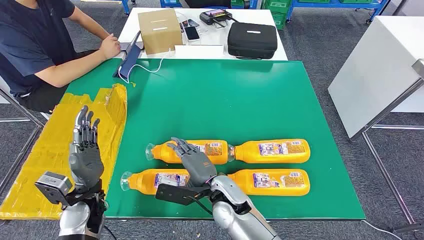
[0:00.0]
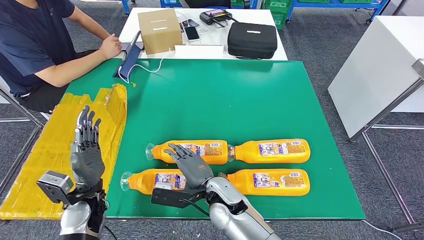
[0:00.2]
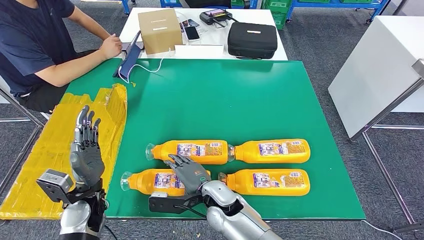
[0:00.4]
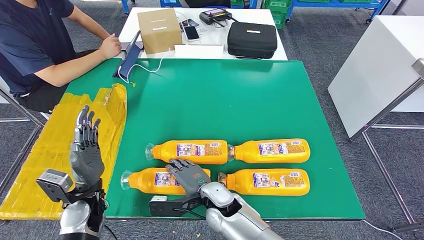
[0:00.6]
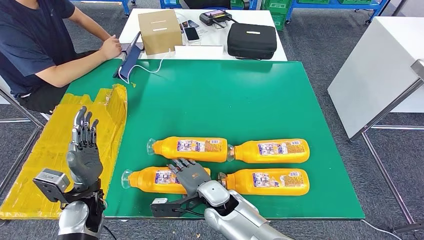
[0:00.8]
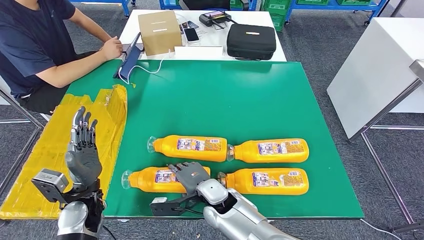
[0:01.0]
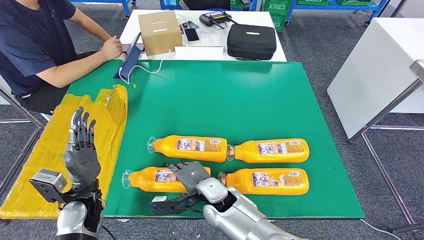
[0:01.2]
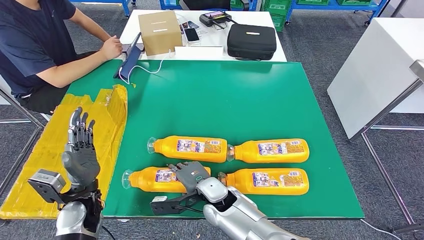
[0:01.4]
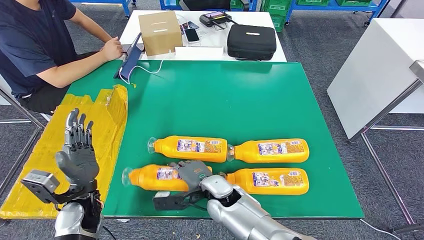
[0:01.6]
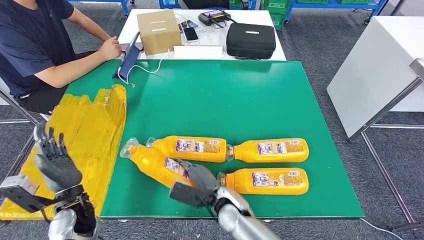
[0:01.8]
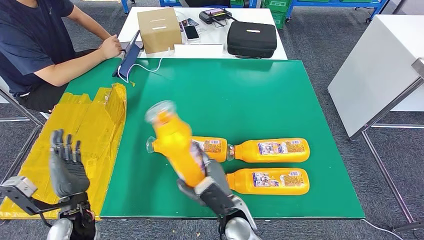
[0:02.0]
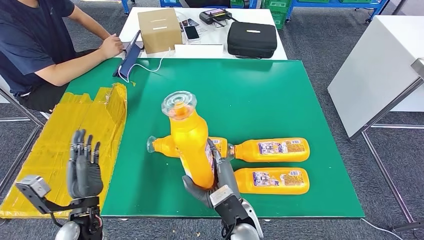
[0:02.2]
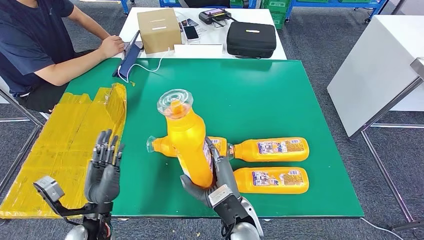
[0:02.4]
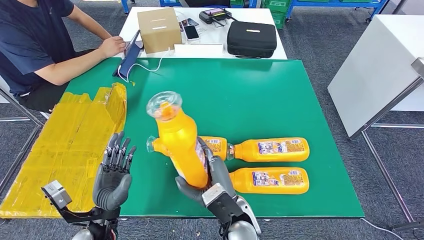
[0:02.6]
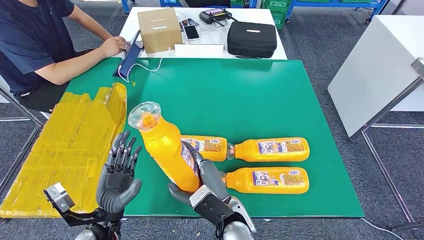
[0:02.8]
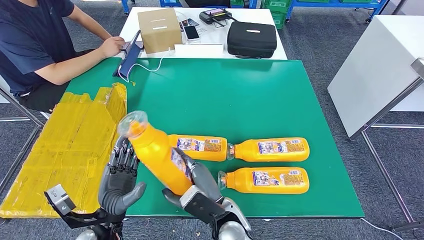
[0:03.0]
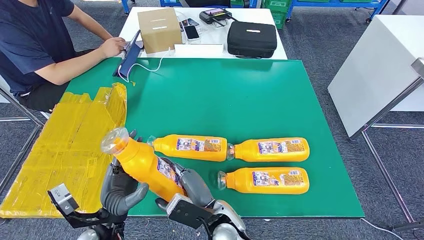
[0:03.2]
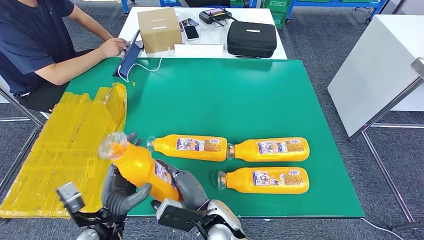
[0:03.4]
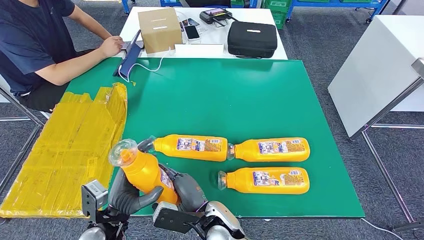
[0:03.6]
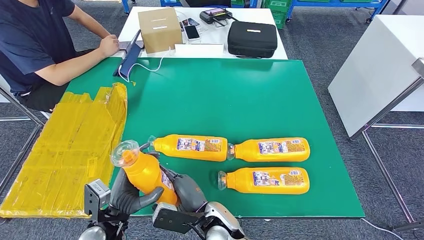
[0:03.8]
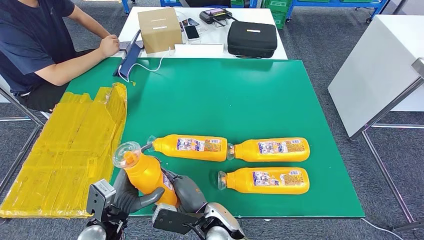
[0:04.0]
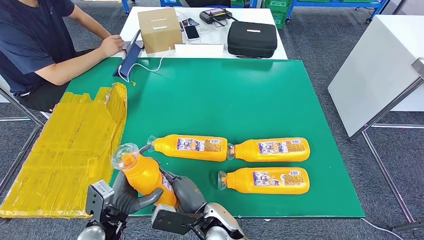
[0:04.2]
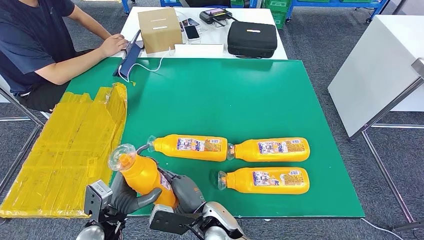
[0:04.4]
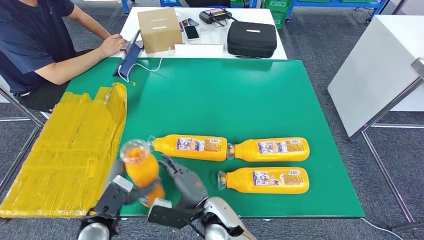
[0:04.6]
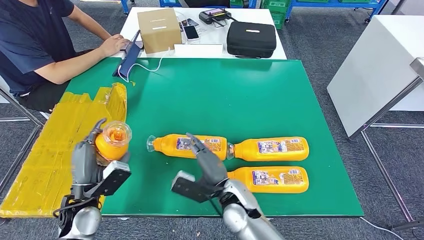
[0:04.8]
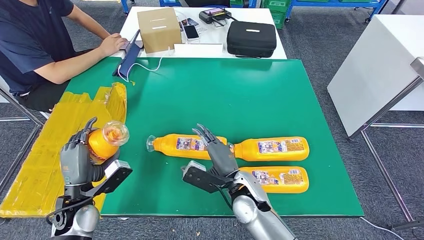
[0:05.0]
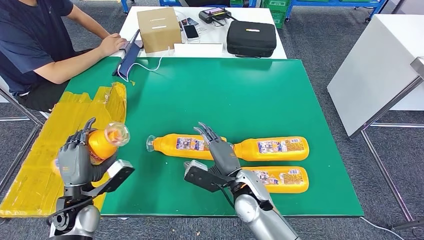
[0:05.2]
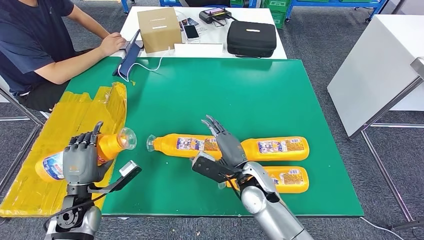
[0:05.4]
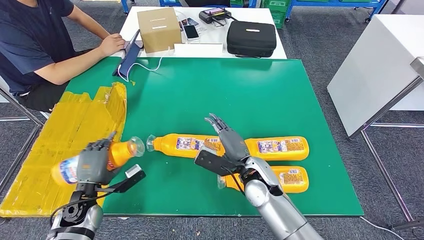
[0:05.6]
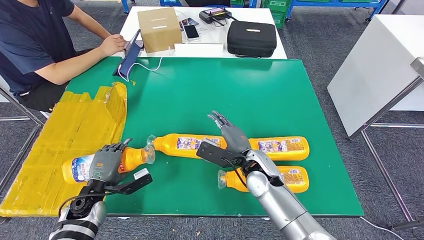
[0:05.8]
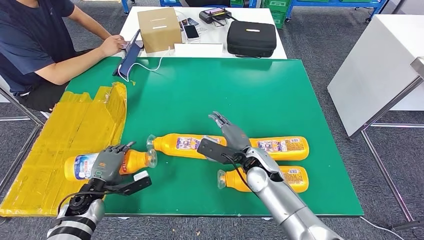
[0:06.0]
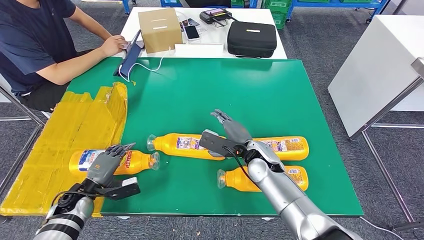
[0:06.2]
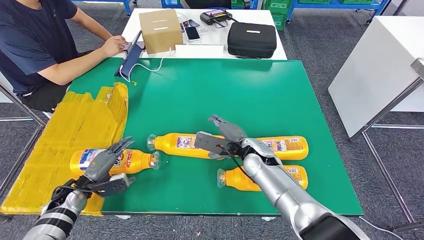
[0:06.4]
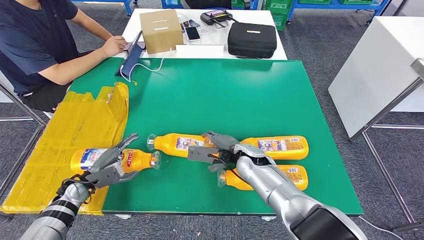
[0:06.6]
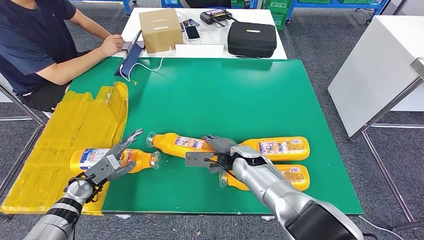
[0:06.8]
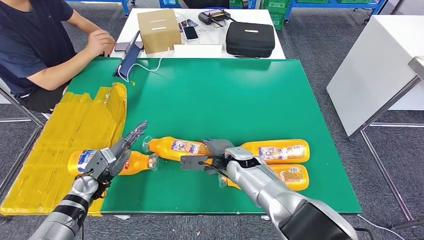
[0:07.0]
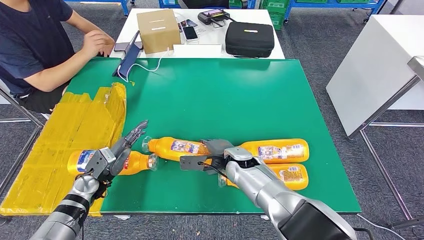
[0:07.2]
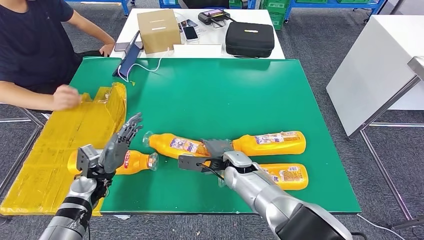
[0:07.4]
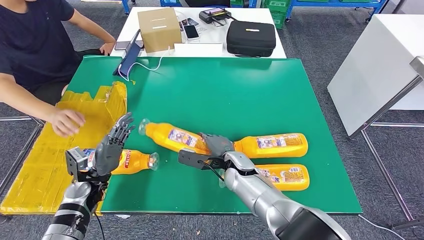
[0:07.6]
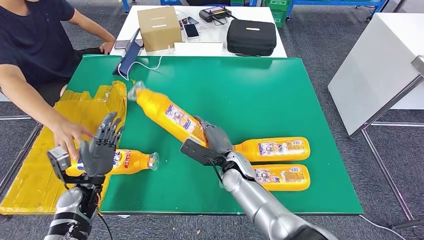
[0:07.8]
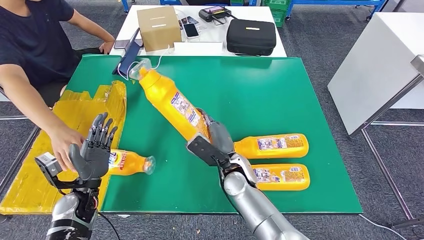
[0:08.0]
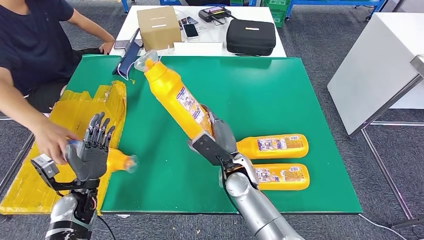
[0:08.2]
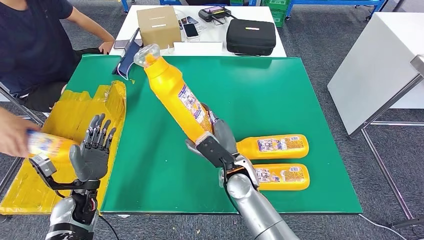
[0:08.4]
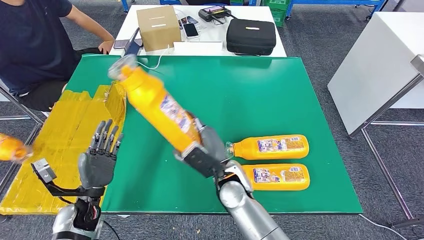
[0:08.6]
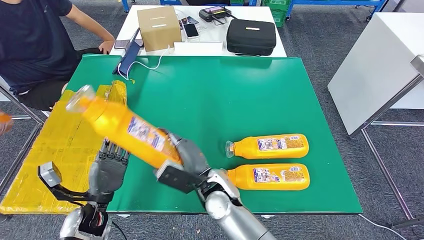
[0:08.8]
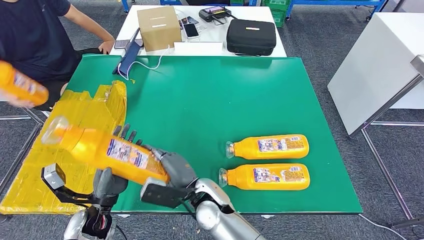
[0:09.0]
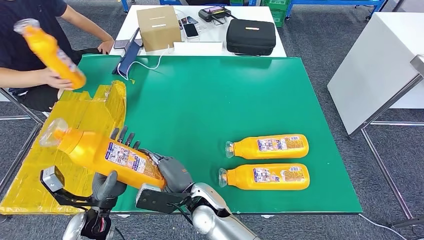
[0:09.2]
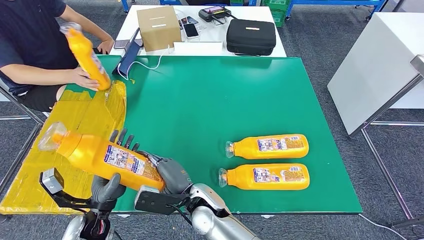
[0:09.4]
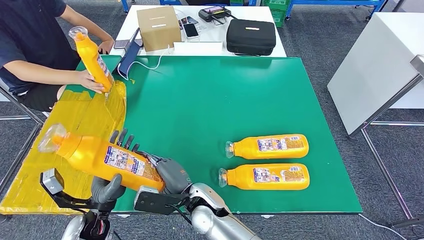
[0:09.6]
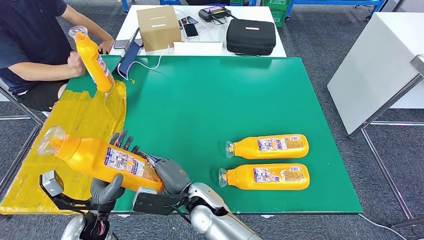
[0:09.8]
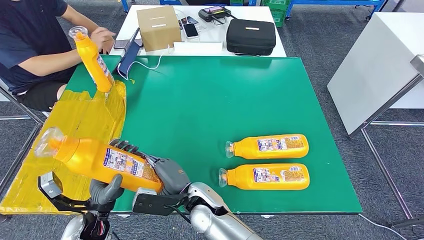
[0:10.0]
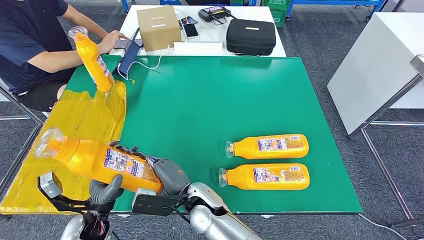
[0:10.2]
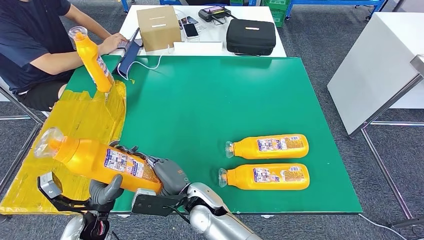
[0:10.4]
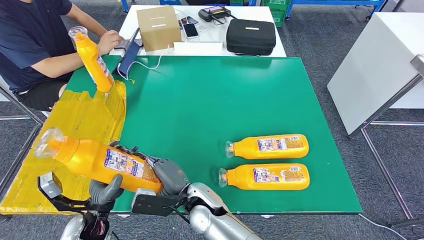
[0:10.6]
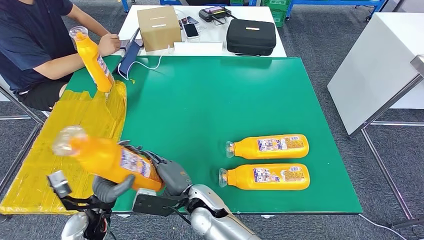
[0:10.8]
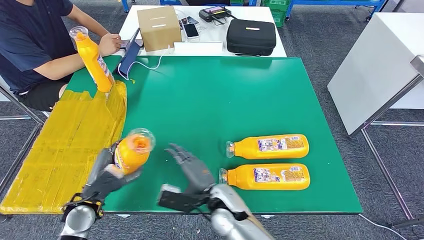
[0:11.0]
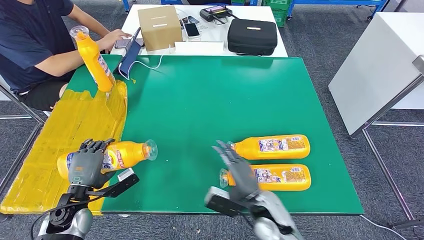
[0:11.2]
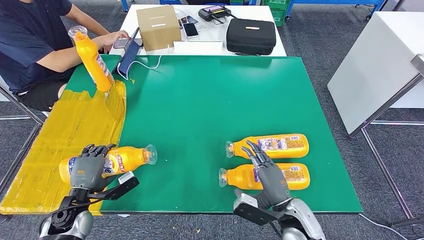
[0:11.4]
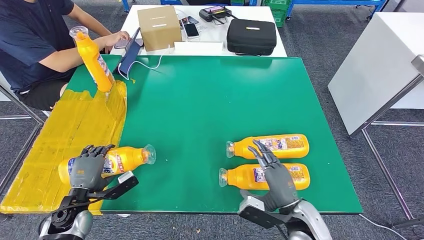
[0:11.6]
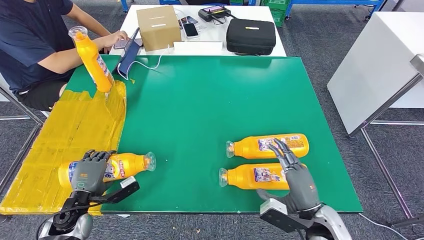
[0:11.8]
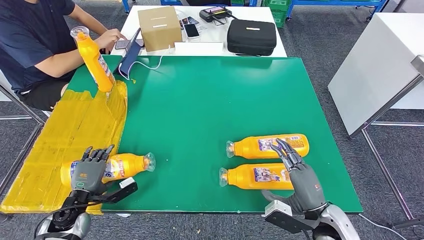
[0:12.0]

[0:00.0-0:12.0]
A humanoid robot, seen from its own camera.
Step, 0:00.0 to 0:03.0: Take the fast-moving consumer goods bottle from the table.
Step, 0:03.4 to 0:06.4: Flip the fast-moving consumer goods bottle to the front side.
Step, 0:07.2 to 0:09.4: Pick up the fast-moving consumer goods bottle from the table.
0:04.4 to 0:06.0: The right hand heads forward and to the right, covering approximately 20 cm. The left hand heads to the left and forward, covering some 15 cm.
0:09.0 to 0:10.4: The hands move only a little.

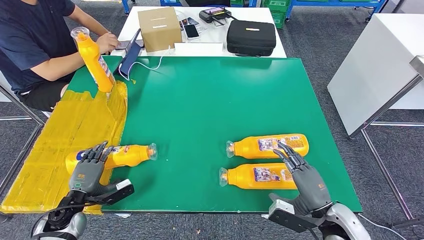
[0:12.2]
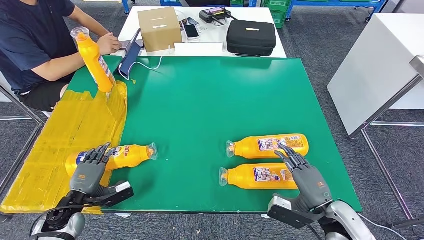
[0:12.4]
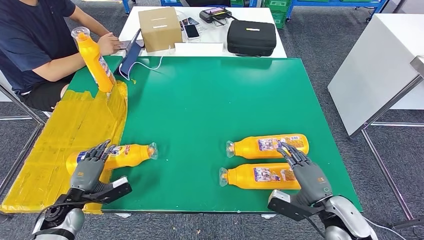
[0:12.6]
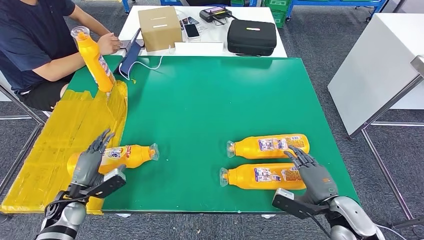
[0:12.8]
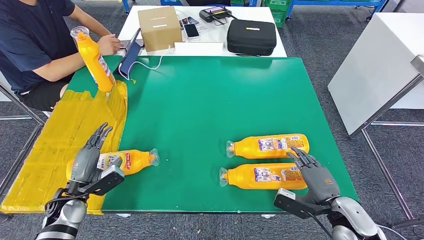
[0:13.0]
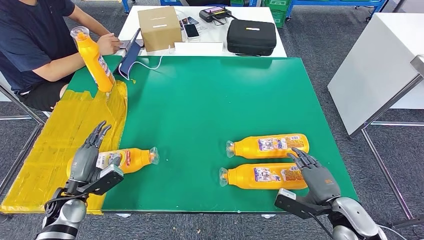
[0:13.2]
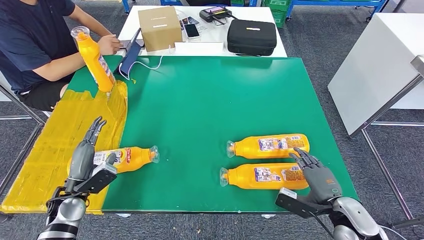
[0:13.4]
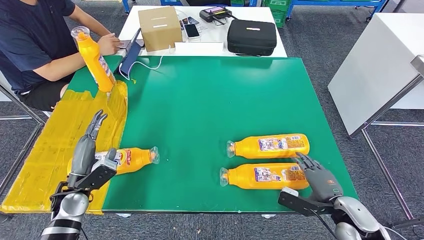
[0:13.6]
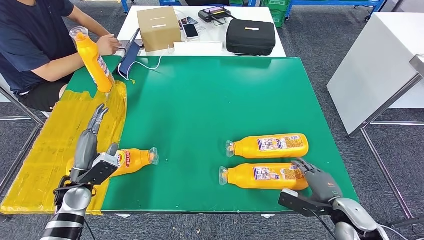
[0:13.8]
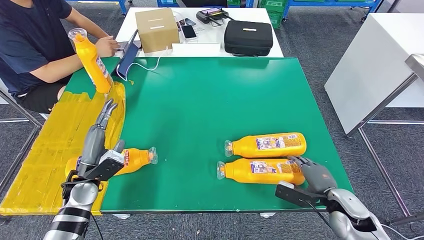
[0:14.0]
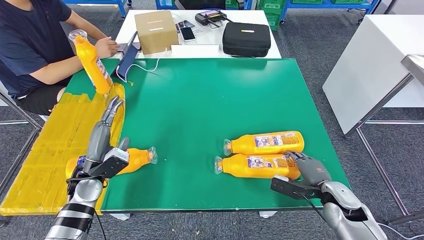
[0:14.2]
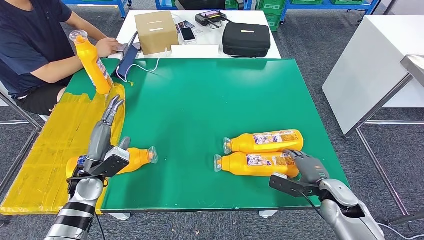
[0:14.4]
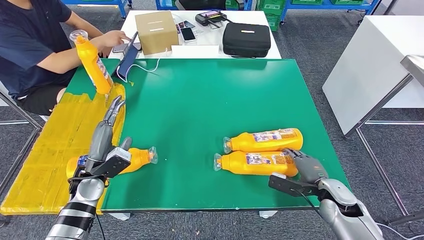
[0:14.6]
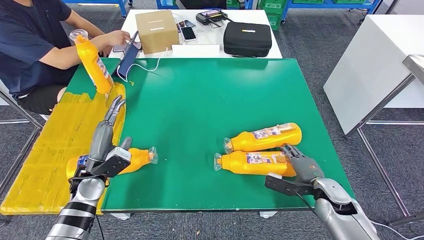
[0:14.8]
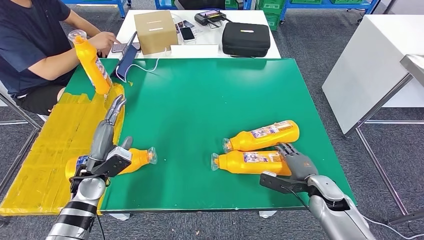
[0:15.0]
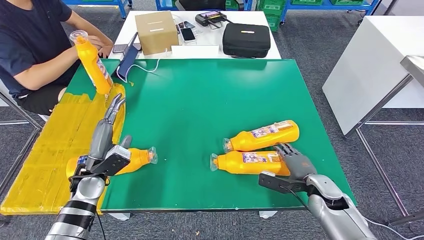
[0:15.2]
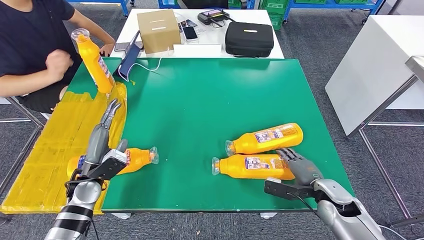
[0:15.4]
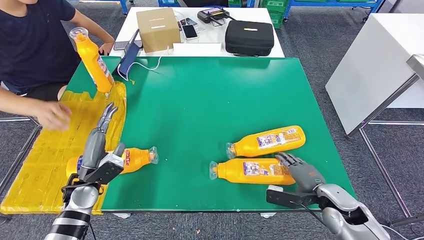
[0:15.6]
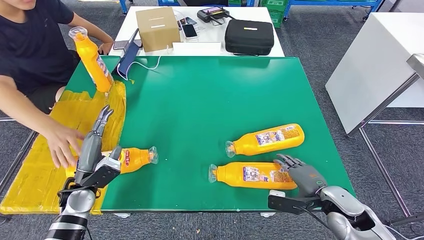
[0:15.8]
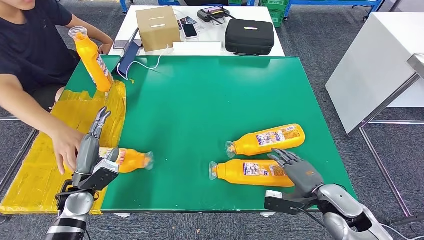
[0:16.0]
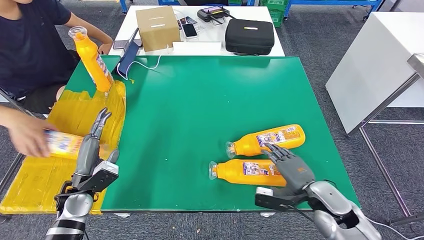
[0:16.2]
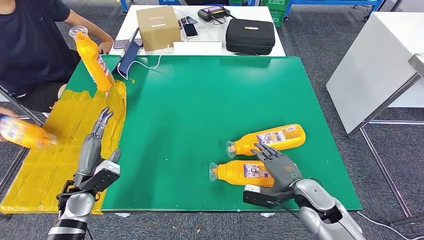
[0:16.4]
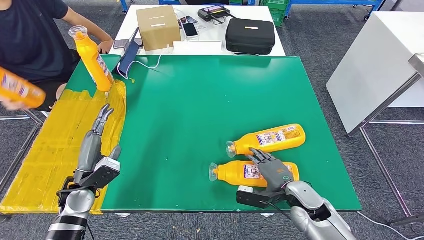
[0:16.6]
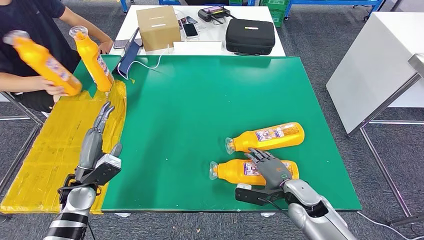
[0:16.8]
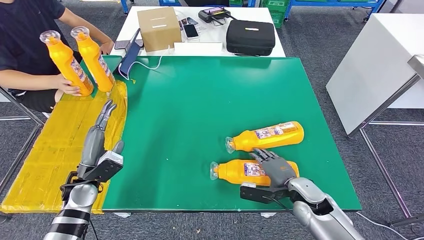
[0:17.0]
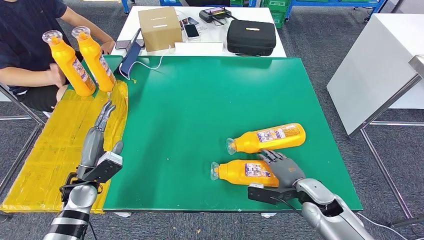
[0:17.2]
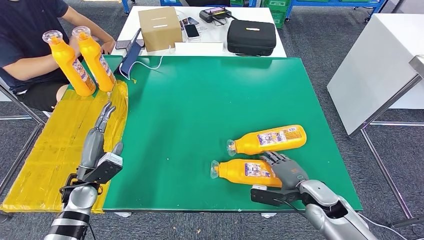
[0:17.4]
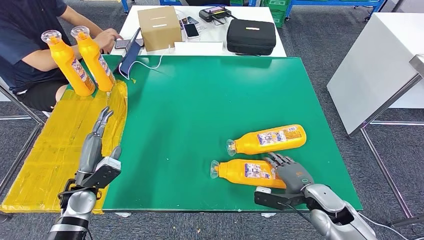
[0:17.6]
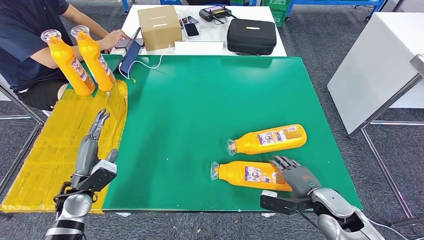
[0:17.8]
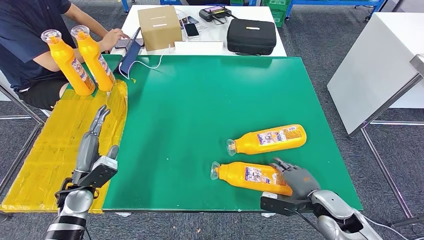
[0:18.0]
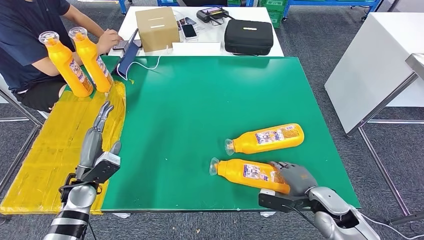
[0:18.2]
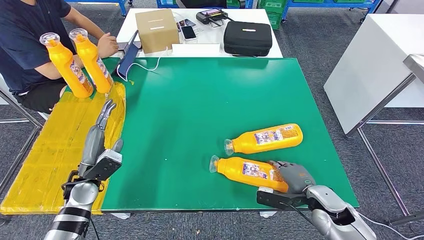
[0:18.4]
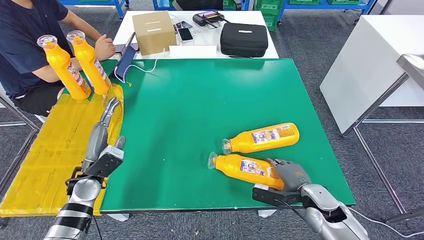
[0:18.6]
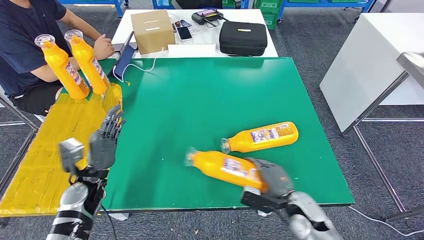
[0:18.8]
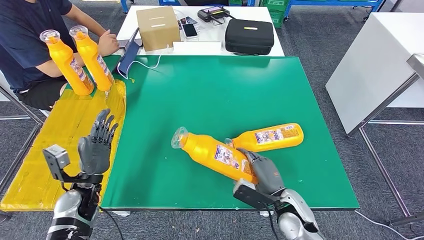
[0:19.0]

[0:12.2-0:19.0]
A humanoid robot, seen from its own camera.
0:12.2 to 0:13.6: The left hand shifts roughly 5 cm upward. Meanwhile the right hand shifts about 5 cm to the right.
